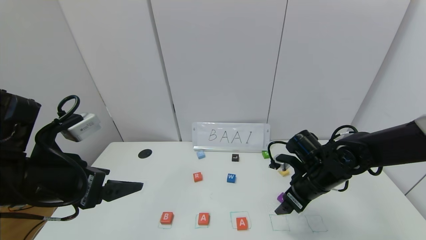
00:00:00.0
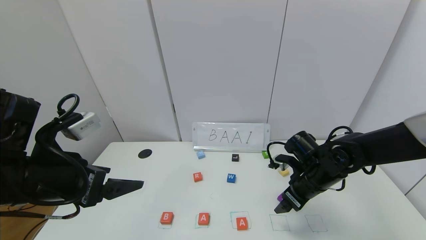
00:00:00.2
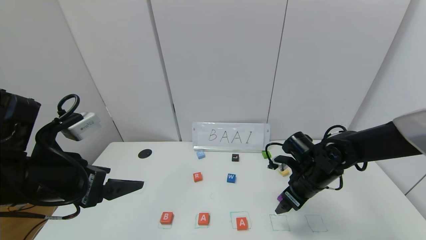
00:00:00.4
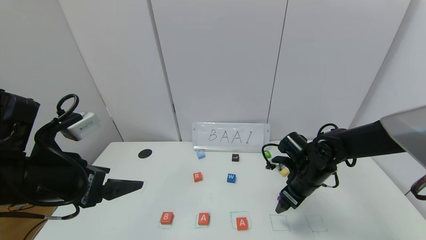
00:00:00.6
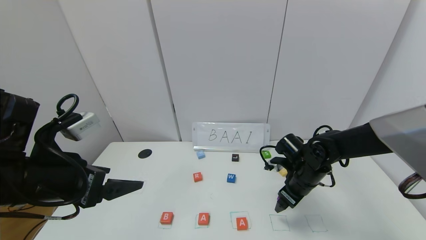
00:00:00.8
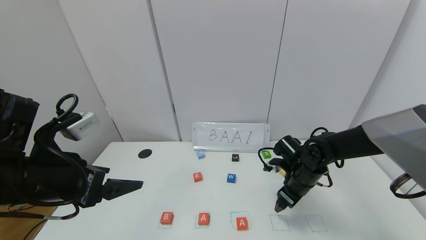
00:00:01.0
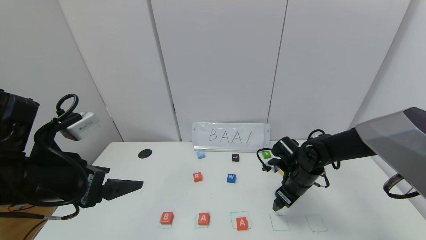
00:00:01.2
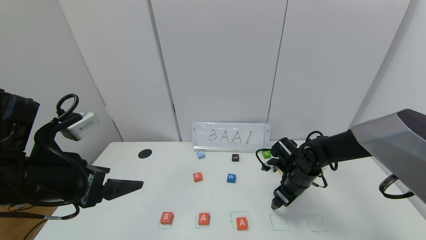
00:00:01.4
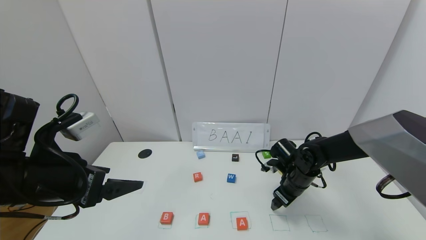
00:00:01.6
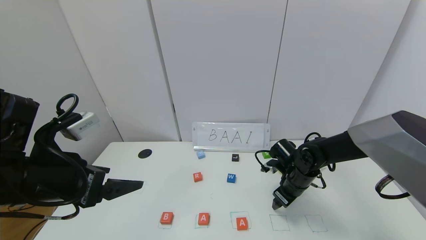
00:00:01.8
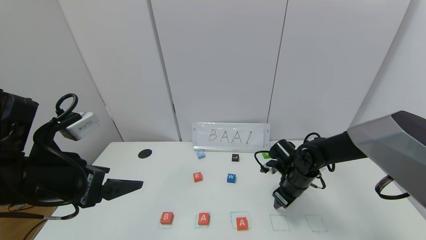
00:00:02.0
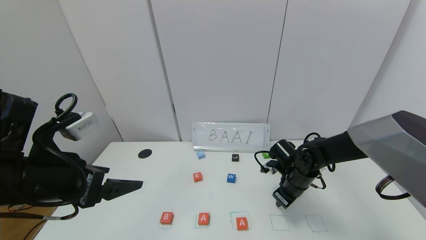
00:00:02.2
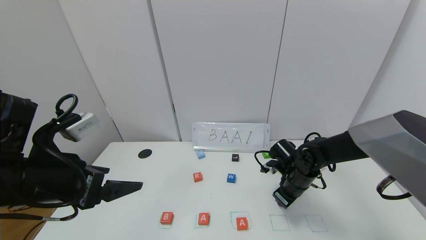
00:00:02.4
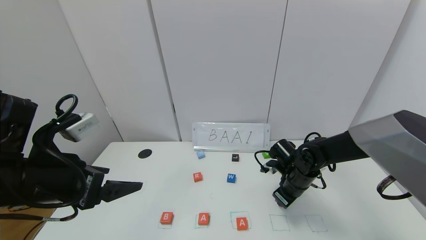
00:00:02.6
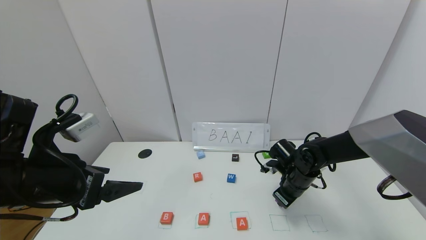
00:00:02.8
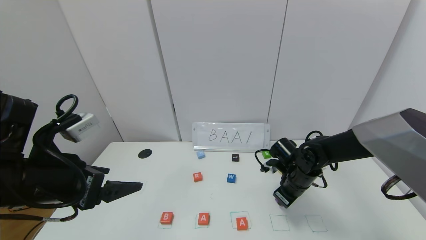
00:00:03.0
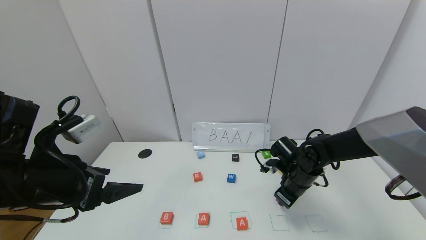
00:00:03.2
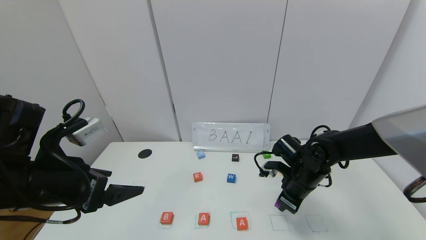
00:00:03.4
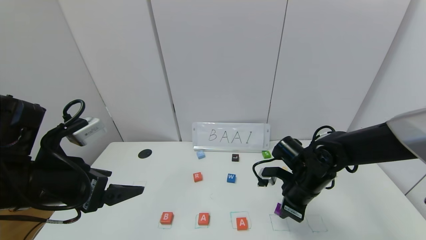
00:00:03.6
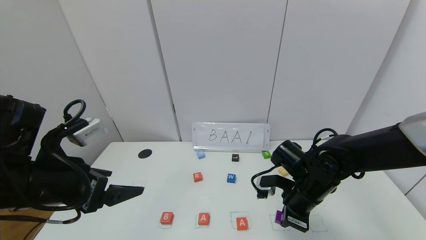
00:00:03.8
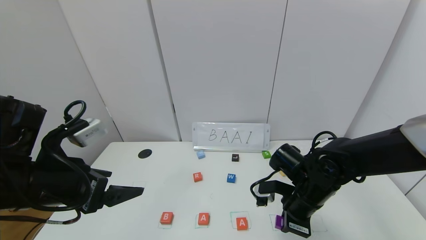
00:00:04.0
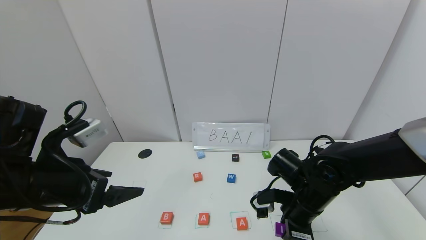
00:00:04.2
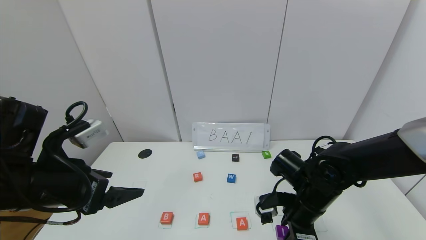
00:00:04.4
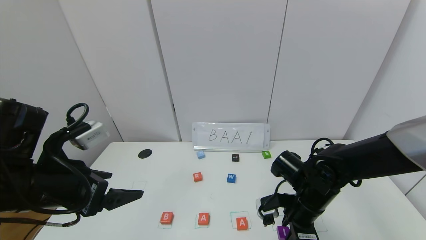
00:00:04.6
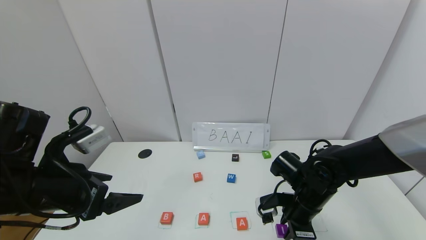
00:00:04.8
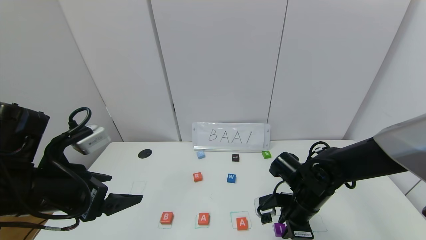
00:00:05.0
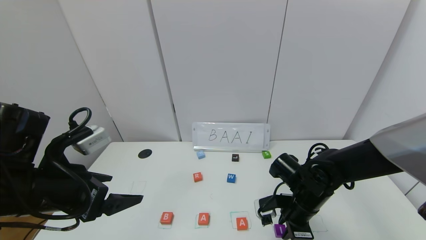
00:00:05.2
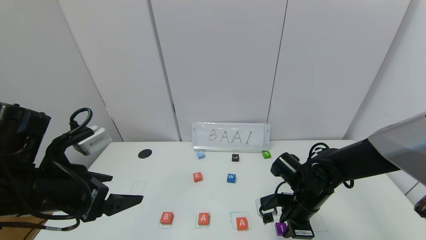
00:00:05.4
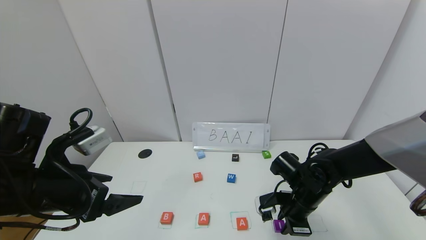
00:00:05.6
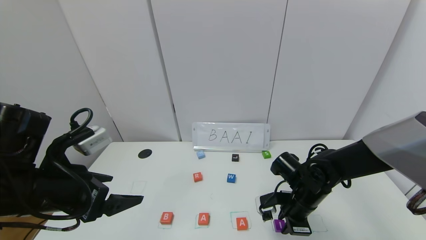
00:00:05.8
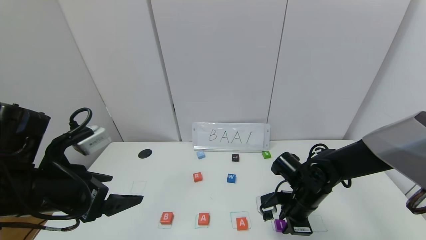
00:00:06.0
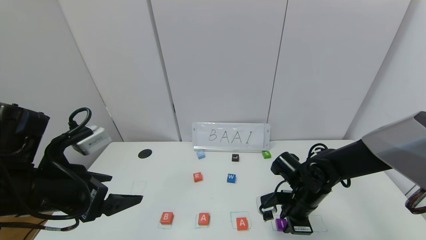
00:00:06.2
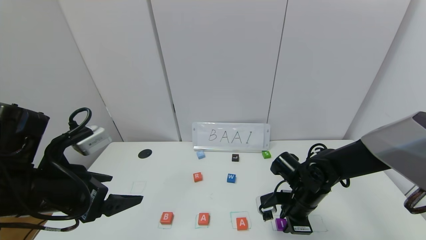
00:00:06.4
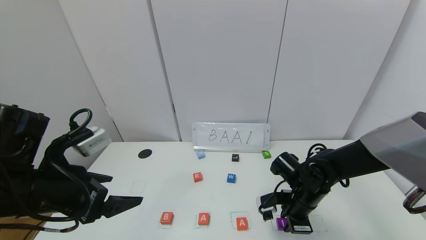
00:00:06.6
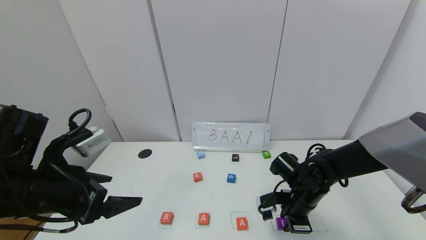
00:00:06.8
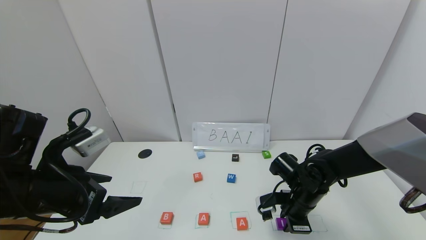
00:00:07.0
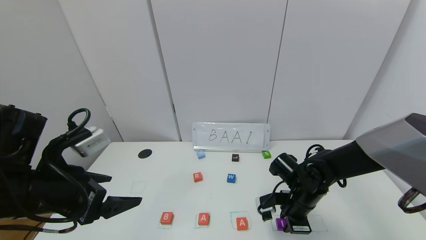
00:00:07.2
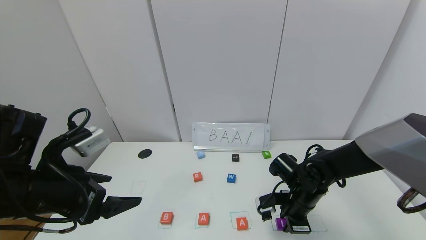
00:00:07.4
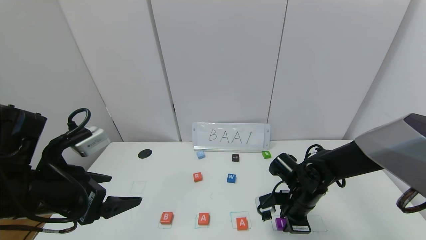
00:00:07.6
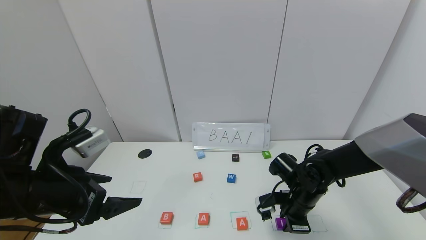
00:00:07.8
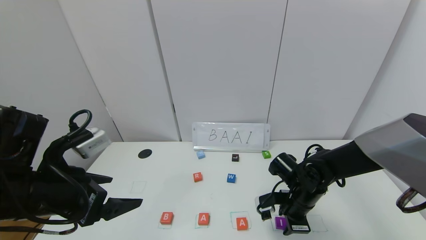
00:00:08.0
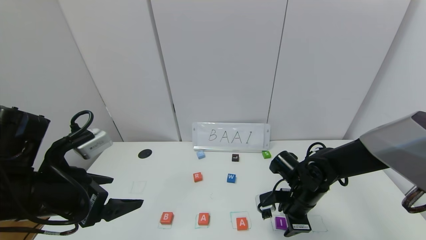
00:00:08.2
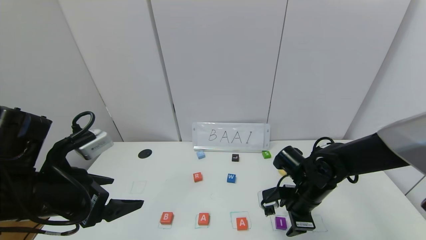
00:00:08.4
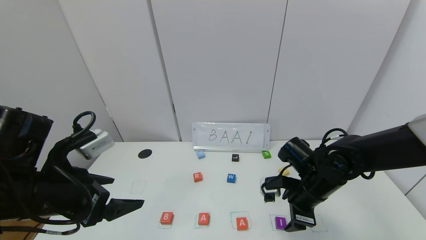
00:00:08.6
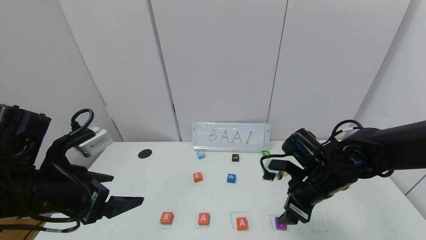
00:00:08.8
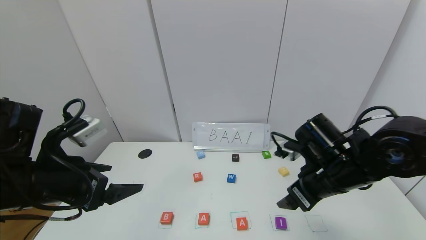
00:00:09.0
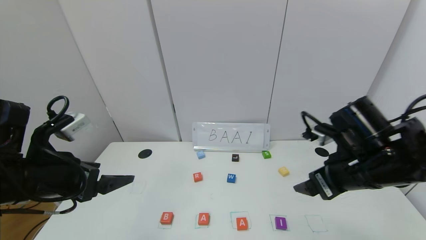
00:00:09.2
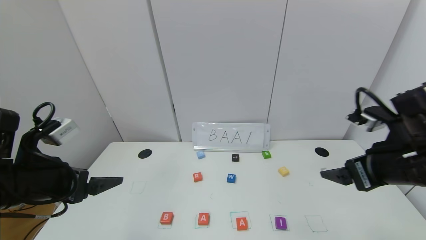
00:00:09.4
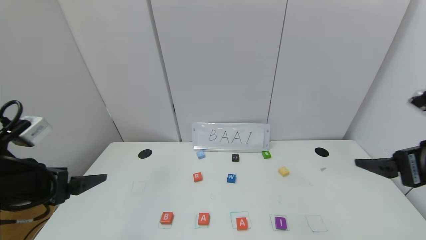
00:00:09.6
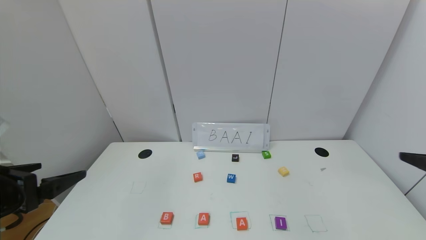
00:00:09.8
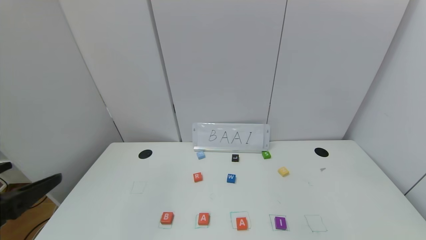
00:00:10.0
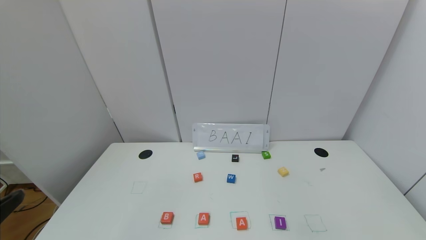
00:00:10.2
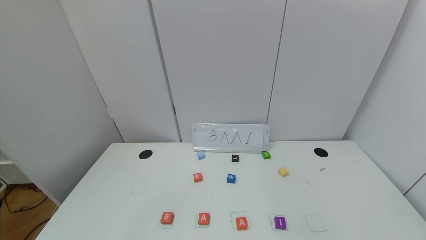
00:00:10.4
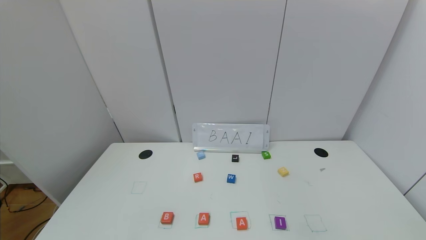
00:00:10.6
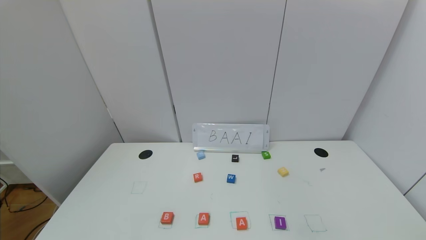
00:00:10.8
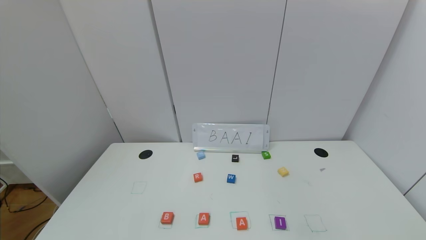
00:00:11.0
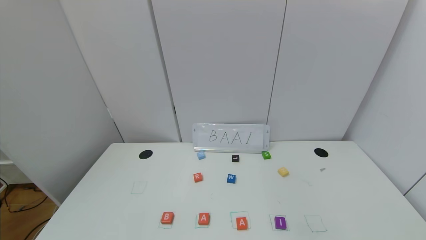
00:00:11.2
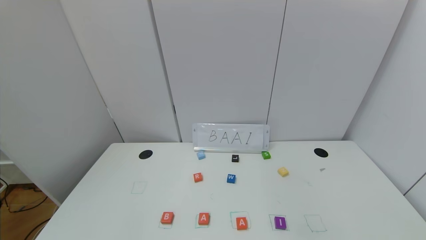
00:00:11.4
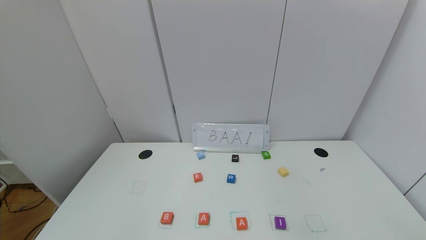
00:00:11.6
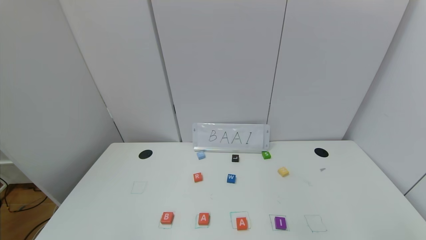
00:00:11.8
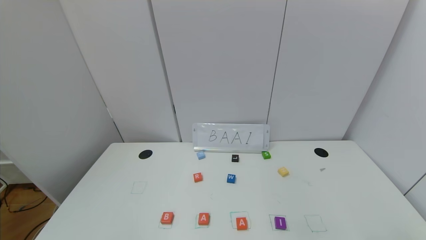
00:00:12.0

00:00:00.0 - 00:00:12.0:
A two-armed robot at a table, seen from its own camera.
Task of the whole recording: use the gripper to find blocks with the letters b, a, a, and i on the table and arrange them into BAAI, then find r and N and turn the arranged baai into brian.
Step, 00:00:00.0 - 00:00:08.2: Place the block I in the fourth location.
00:00:00.0 - 00:00:01.6: The right gripper heads downward and forward, covering approximately 10 cm.
00:00:01.6 - 00:00:03.0: The right gripper closes.
00:00:03.0 - 00:00:04.4: The right gripper heads backward, covering some 10 cm.
00:00:04.4 - 00:00:06.0: The grippers stay close to where they were, moving slightly.
00:00:06.0 - 00:00:07.6: Both grippers stay put.
00:00:07.6 - 00:00:09.0: The right gripper shifts some 15 cm upward, and opens.
00:00:09.0 - 00:00:10.4: The left gripper heads backward, covering approximately 20 cm, while the right gripper travels backward and to the right by roughly 35 cm.

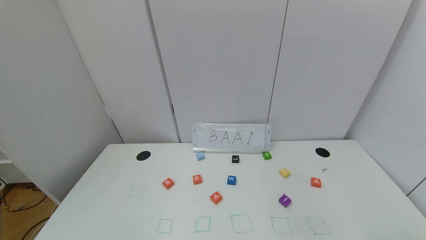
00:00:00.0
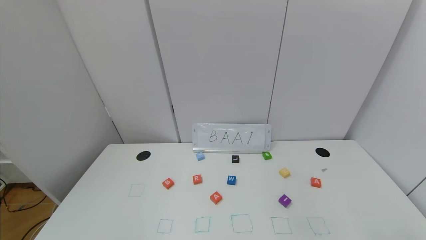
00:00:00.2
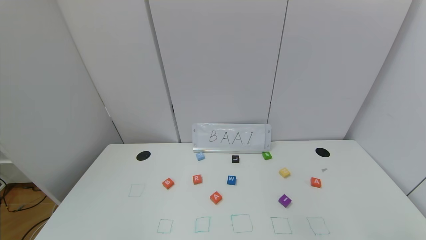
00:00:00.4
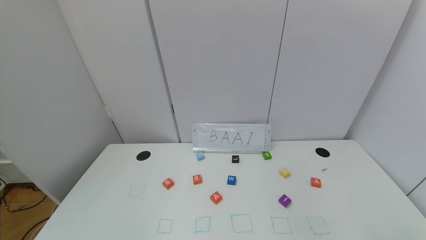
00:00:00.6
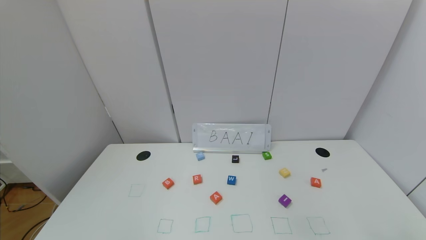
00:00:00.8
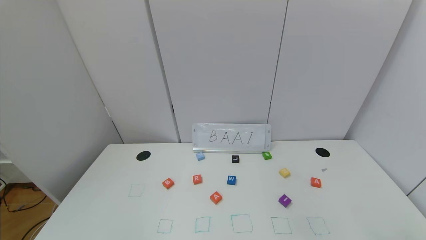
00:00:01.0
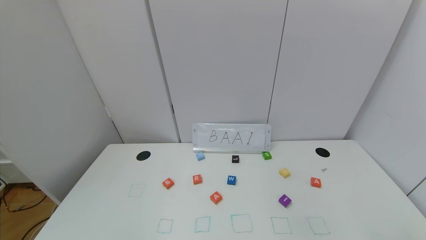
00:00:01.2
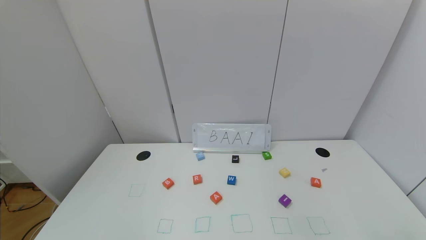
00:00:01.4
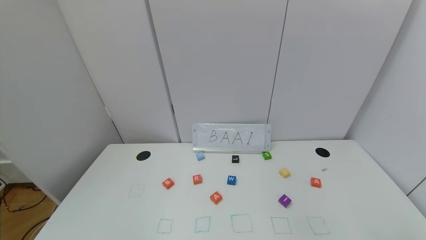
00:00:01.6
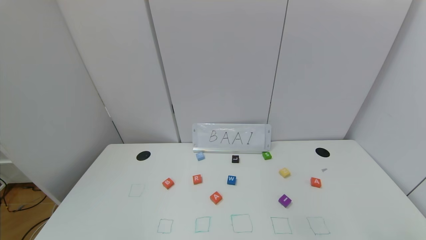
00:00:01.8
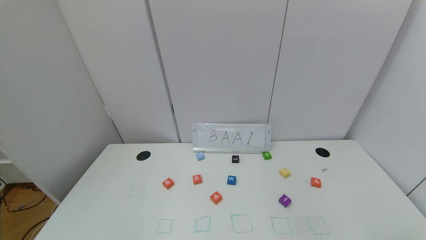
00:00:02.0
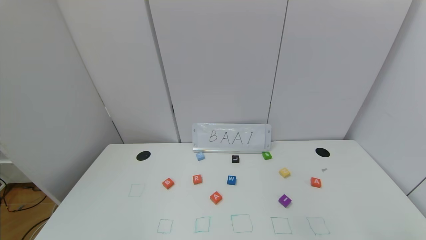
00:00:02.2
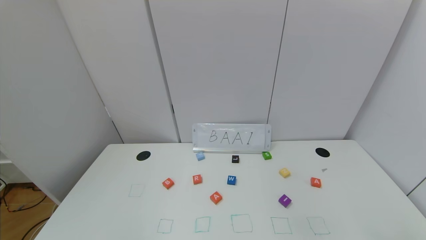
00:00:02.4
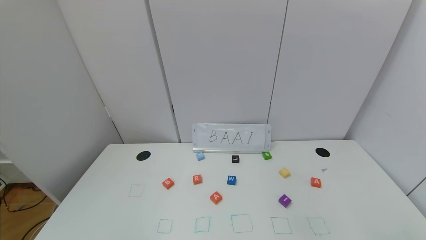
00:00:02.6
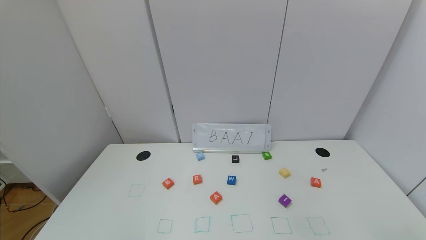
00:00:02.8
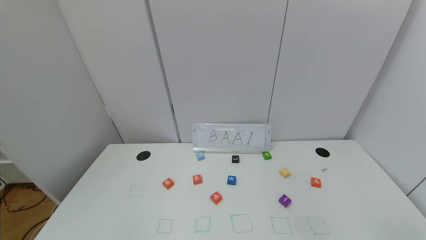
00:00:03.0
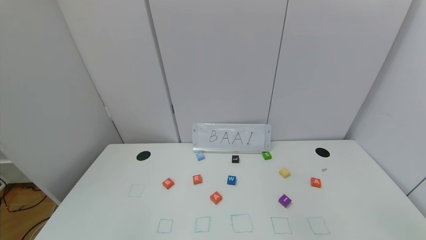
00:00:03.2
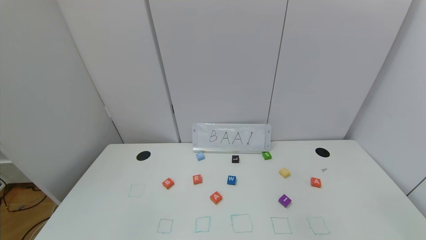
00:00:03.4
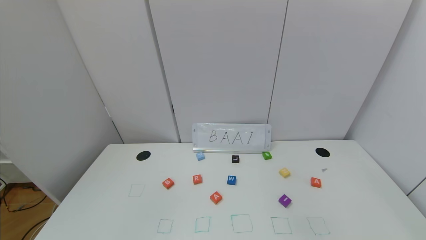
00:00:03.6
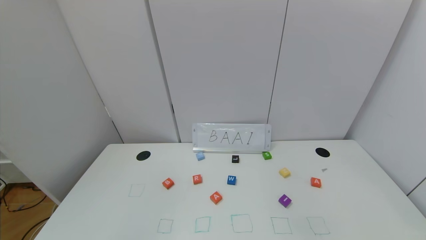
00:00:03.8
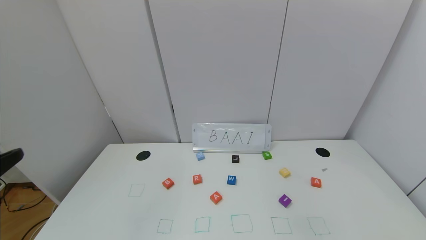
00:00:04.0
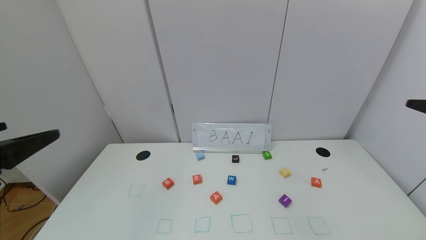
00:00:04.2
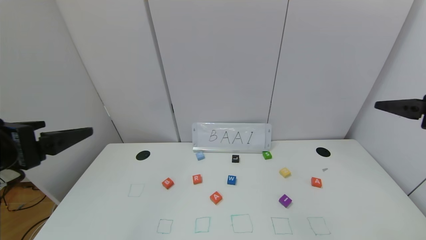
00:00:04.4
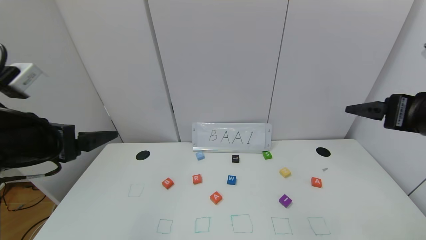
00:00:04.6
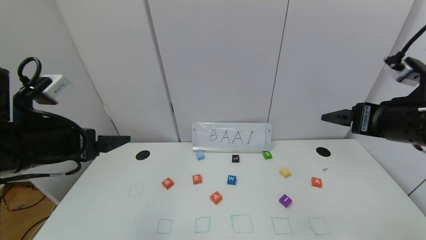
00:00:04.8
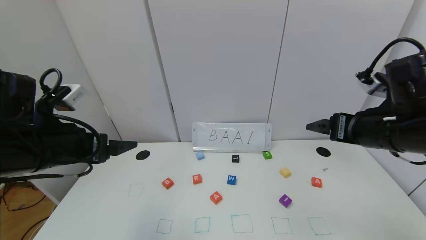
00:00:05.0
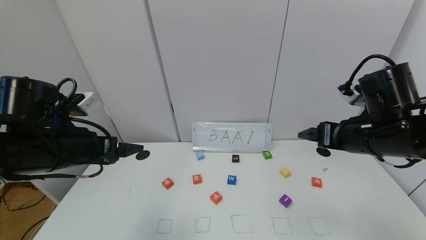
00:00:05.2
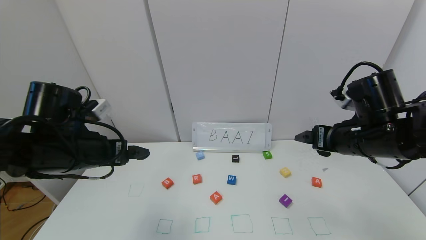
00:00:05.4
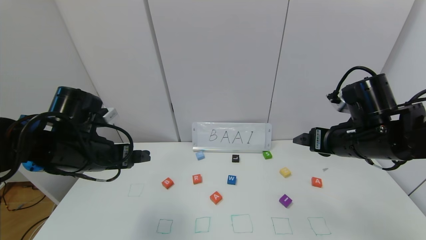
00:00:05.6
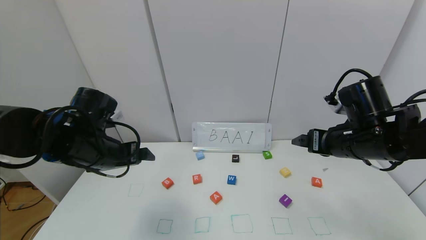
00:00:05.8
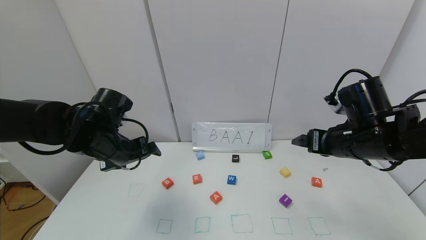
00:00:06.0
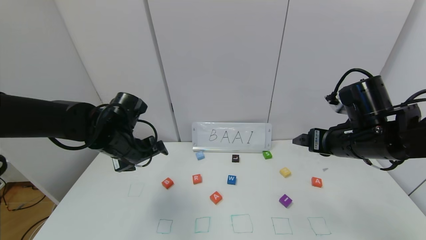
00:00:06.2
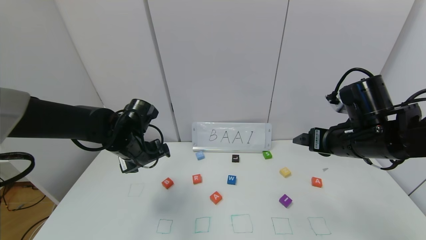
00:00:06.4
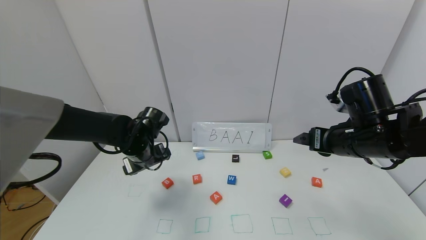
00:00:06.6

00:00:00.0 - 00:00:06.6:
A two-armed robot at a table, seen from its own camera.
Task of the whole recording: use the gripper to find blocks with the letters b, a, a, and i on the table and arrange them into BAAI, then find r and N and turn the arranged baai into brian.
00:00:00.0 - 00:00:01.6: Both grippers stay about where they are.
00:00:03.2 - 00:00:05.0: Both grippers move forward, roughly 30 cm.
00:00:05.0 - 00:00:06.6: The left gripper is displaced forward, downward and to the right by approximately 20 cm.
